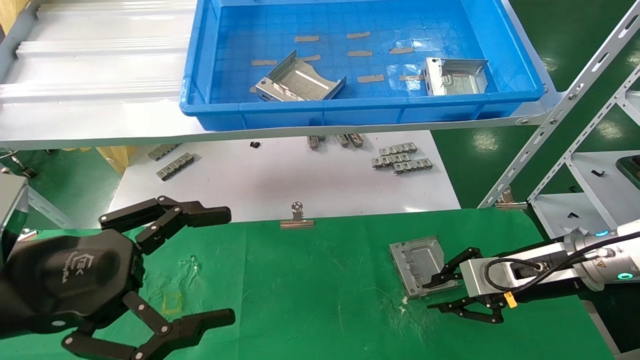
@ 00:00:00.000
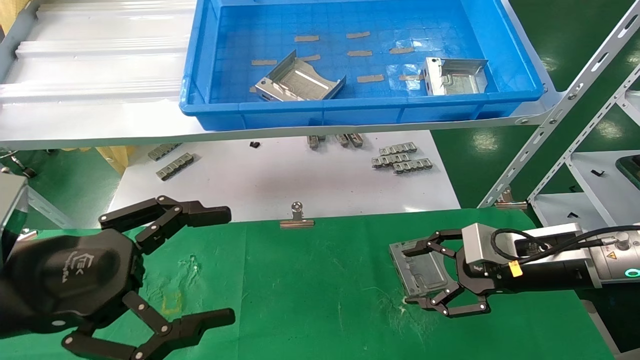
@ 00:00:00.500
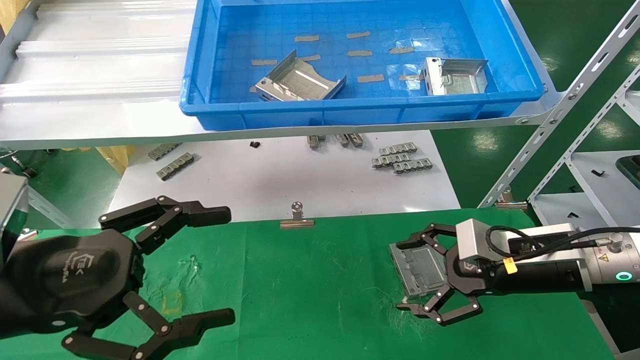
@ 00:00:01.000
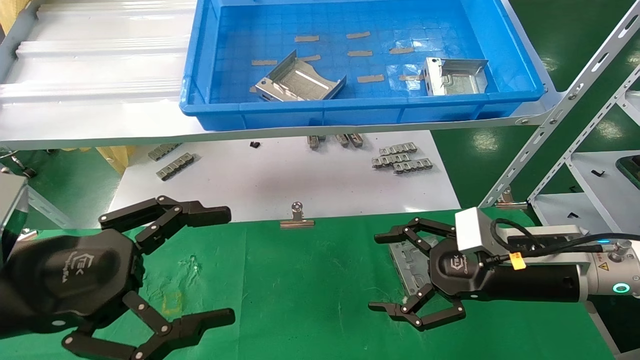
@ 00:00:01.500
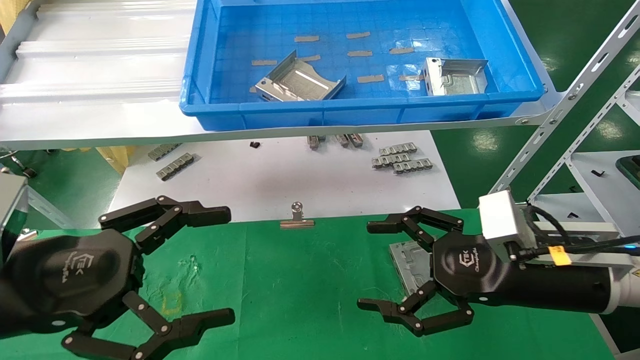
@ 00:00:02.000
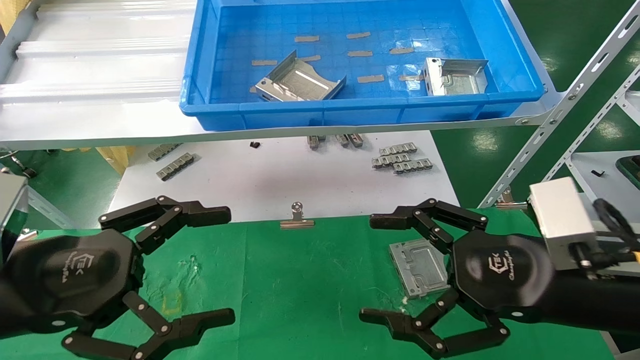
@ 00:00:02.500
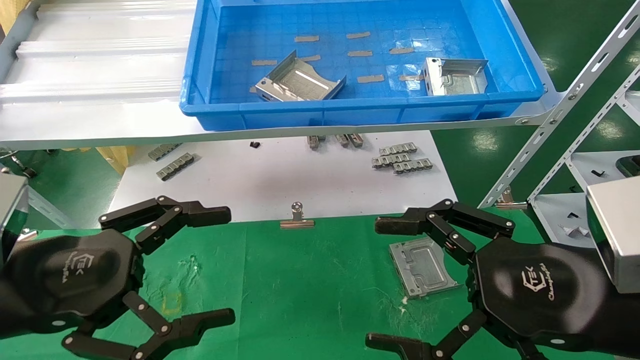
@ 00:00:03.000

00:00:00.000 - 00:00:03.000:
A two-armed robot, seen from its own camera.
Task of the whole recording: use the mechanical arm to pick up the parts and place them on the table.
00:00:00.000 - 00:00:01.500: The right gripper shifts by some 5 cm, and opens.
00:00:01.500 - 00:00:03.000: The right gripper goes some 15 cm backward and upward.
